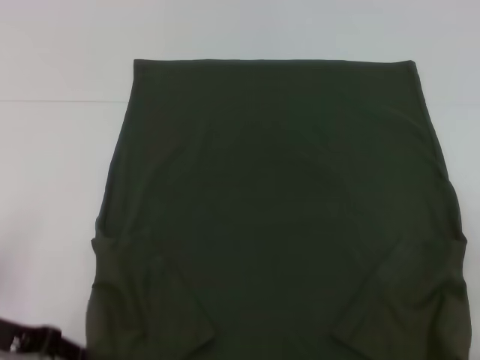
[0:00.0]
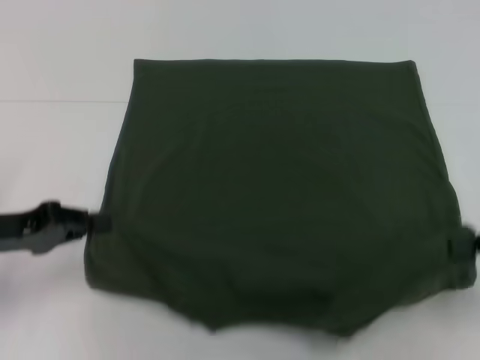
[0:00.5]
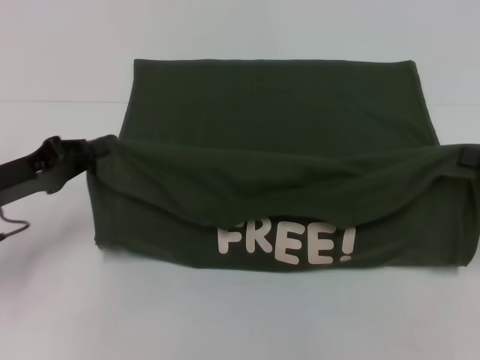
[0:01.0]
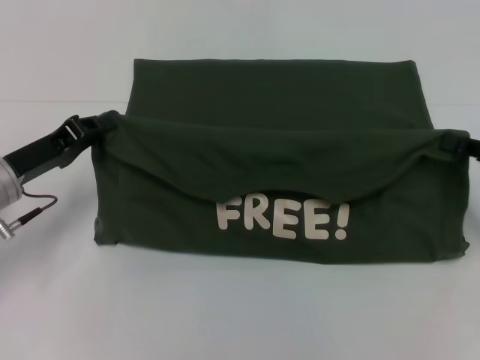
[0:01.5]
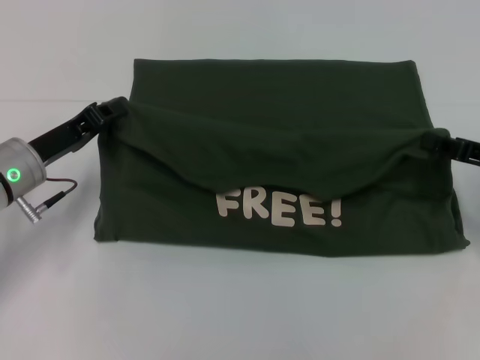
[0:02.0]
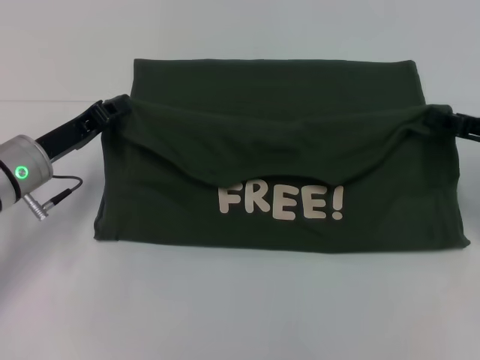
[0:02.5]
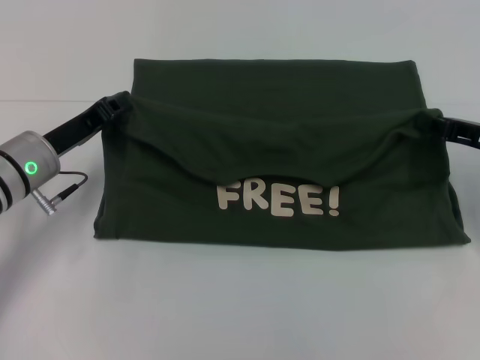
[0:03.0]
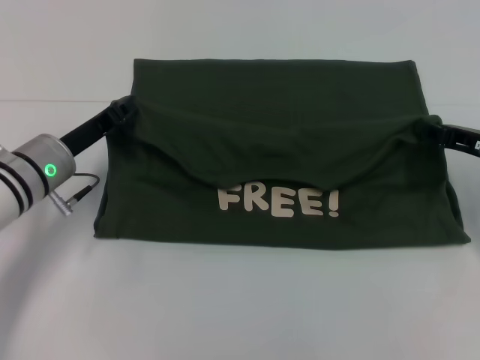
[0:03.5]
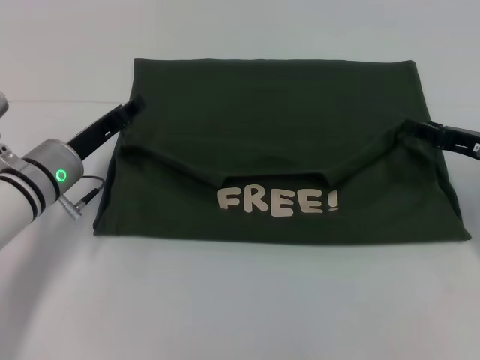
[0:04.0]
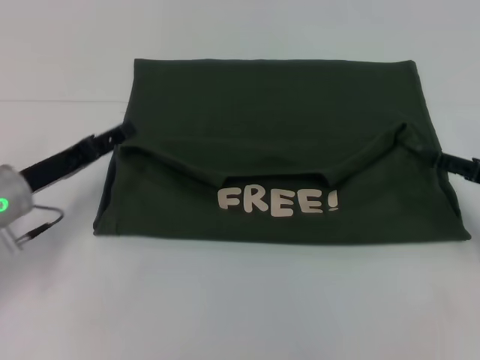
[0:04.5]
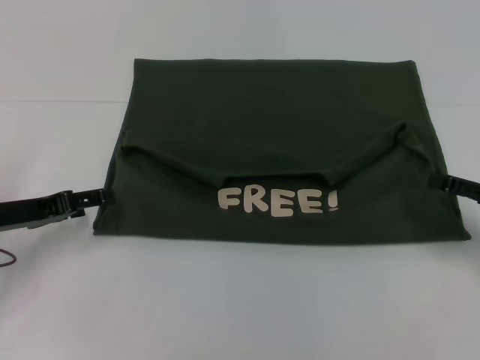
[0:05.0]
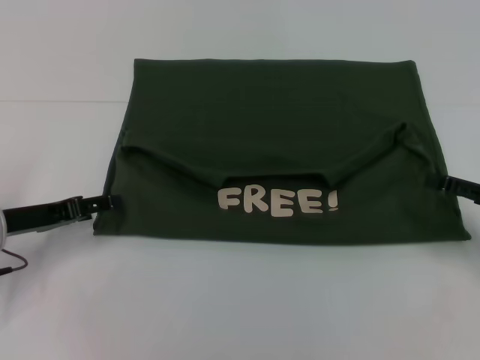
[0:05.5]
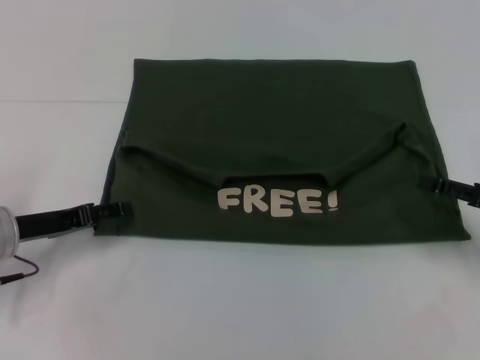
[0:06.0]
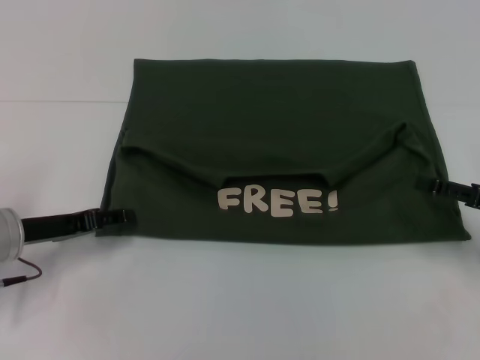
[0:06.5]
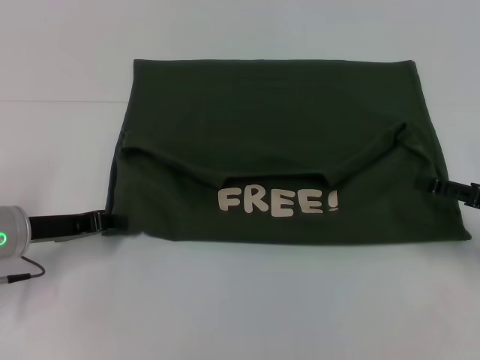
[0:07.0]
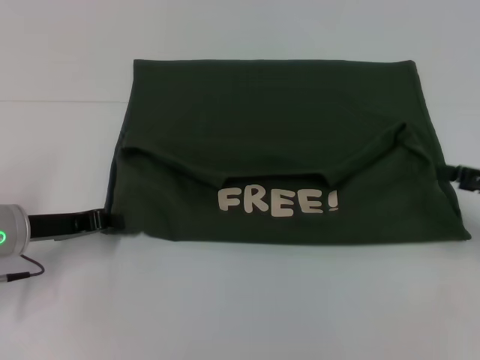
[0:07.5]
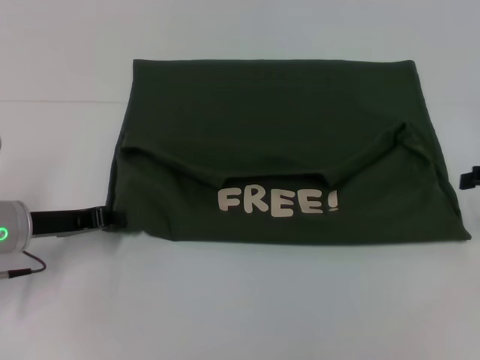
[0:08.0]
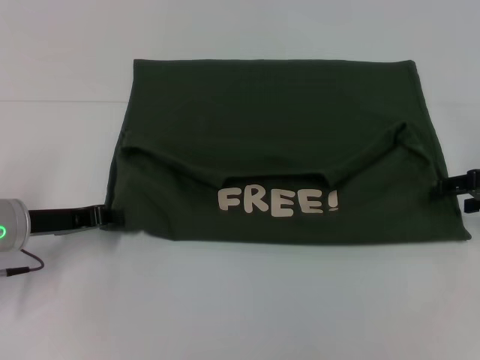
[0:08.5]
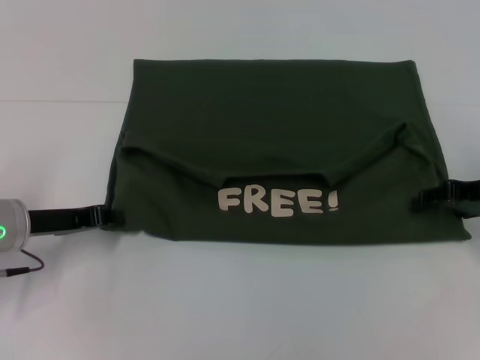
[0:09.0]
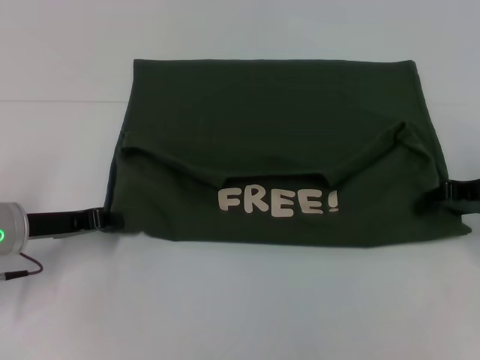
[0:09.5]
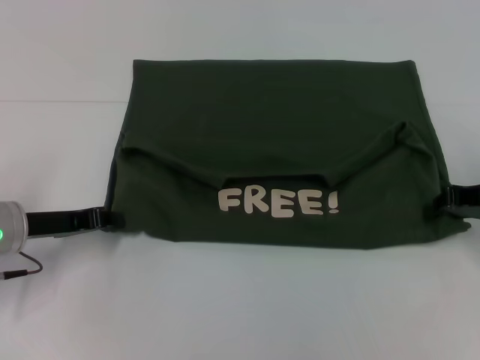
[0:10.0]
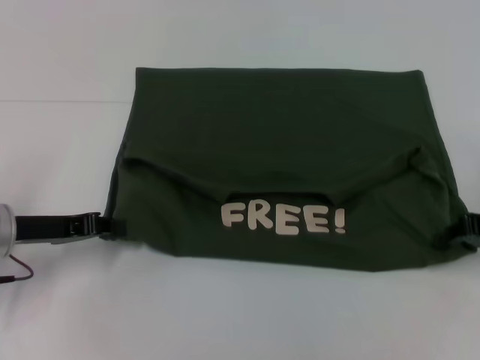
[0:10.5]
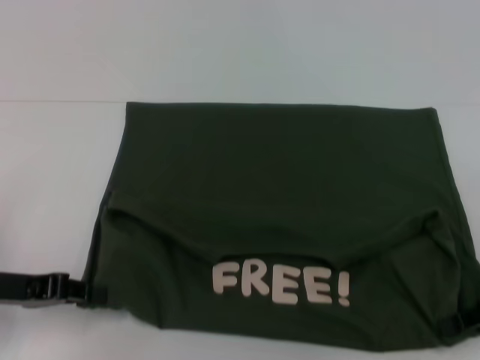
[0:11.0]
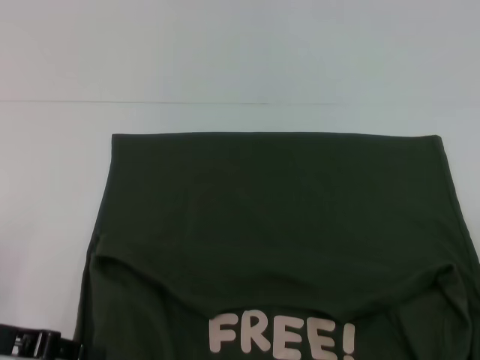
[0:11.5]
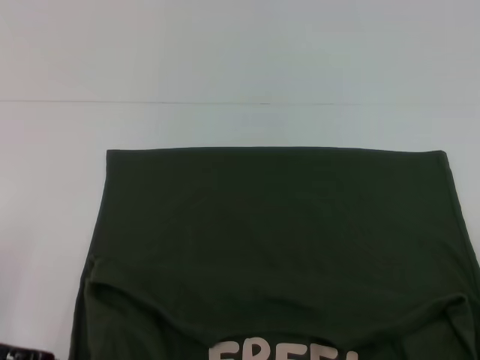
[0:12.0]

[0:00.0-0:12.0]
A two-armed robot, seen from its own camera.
Step, 0:00.0 to 0:03.5: Fold the clothes with your left hand.
Step, 0:00.0 to 0:03.5: Fold the clothes with your right hand.
0:00.0 to 0:02.0: Both grippers move forward, roughly 10 cm.
0:02.0 to 0:04.0: The right gripper opens its fingers.
0:04.0 to 0:06.0: The right gripper moves backward, some 5 cm, and opens its fingers. The left gripper moves to the left and backward, some 10 cm, and opens.
0:06.0 to 0:08.0: The left gripper closes, while the right gripper travels upward and forward by roughly 10 cm.
0:08.0 to 0:10.0: The right gripper is displaced to the left by roughly 5 cm, and closes its fingers.
0:10.0 to 0:12.0: The two grippers go approximately 10 cm backward.

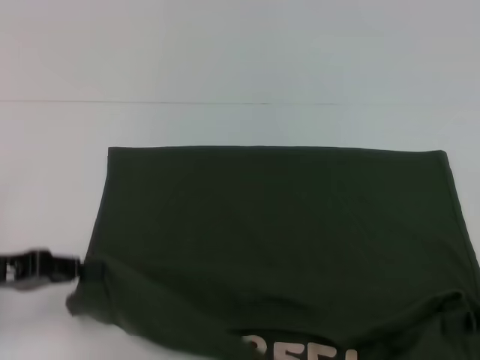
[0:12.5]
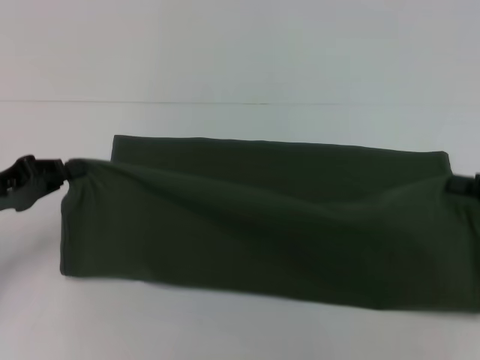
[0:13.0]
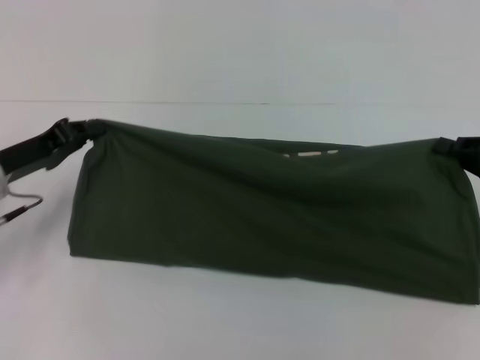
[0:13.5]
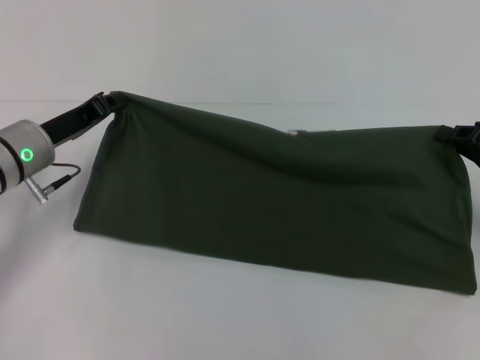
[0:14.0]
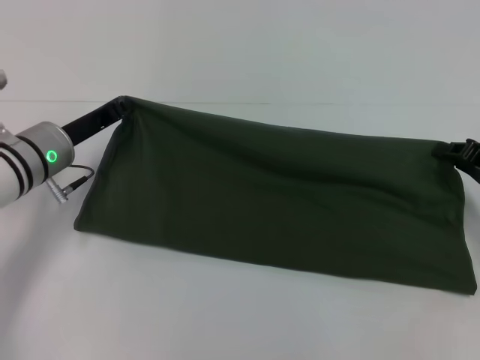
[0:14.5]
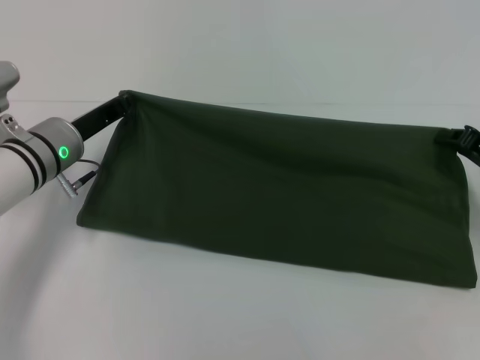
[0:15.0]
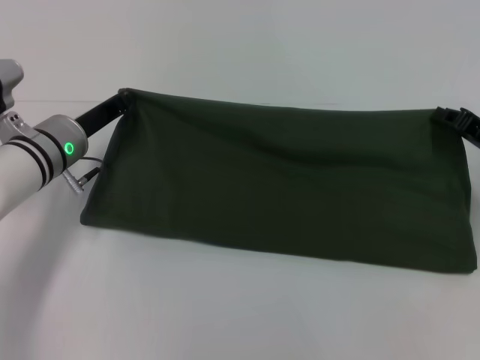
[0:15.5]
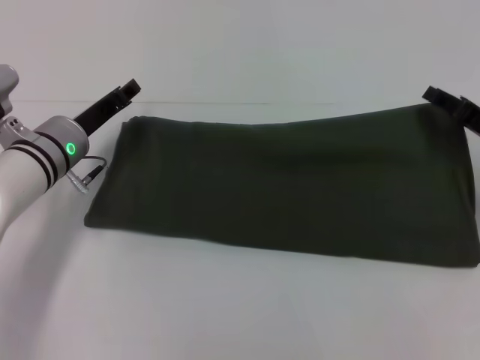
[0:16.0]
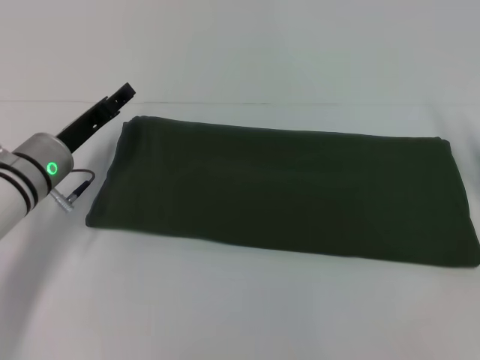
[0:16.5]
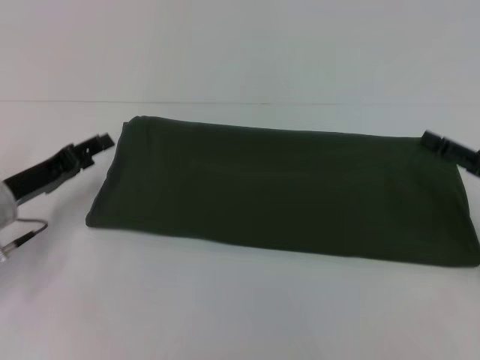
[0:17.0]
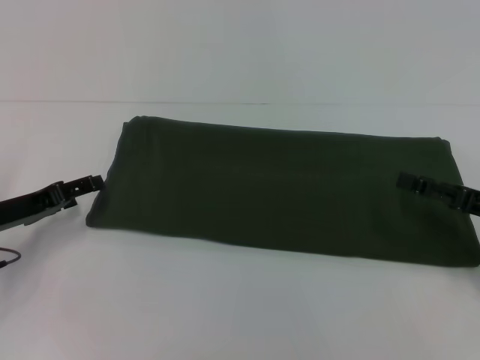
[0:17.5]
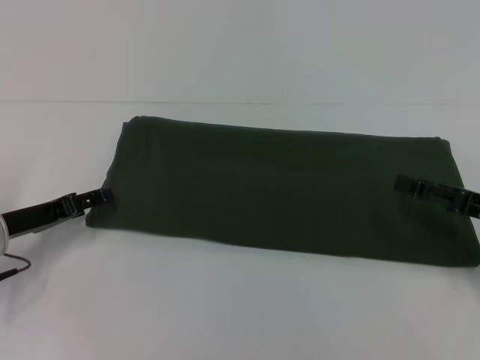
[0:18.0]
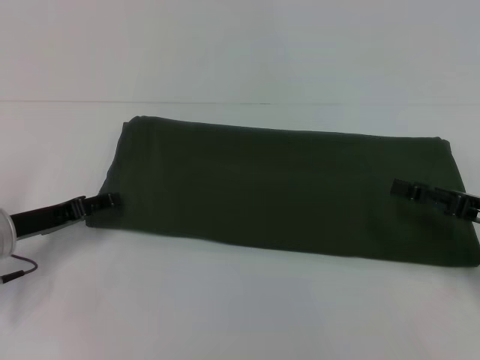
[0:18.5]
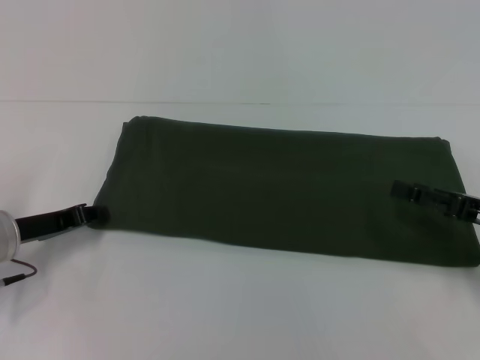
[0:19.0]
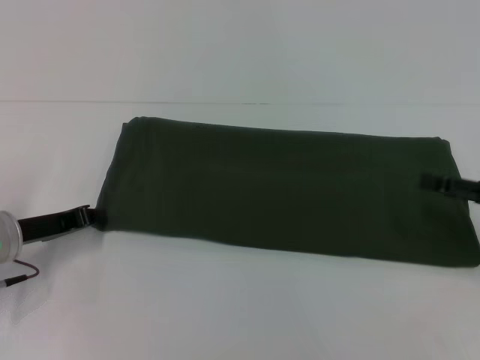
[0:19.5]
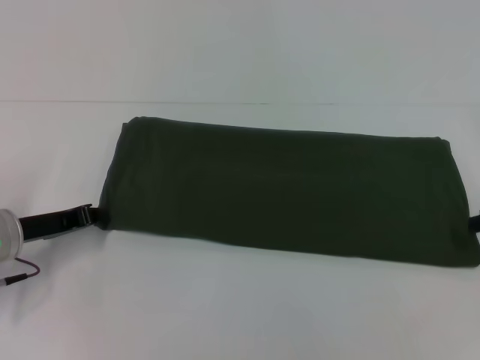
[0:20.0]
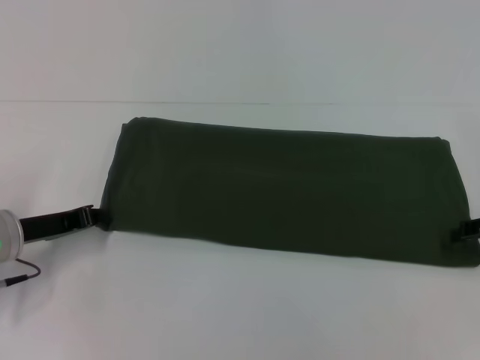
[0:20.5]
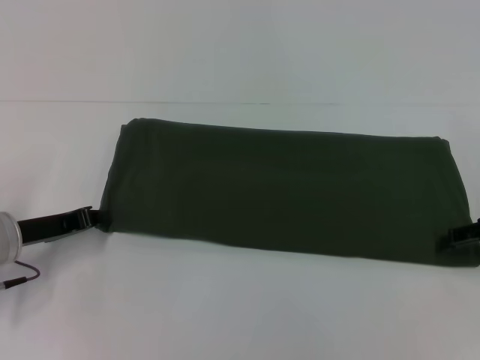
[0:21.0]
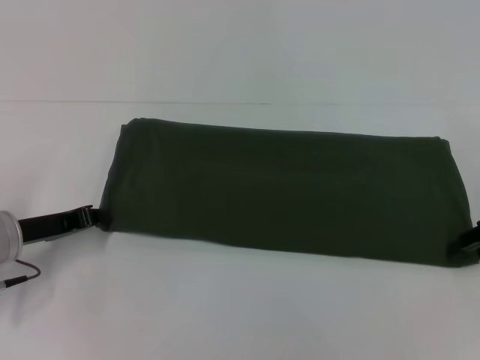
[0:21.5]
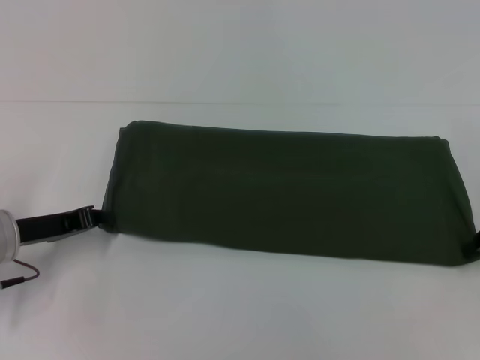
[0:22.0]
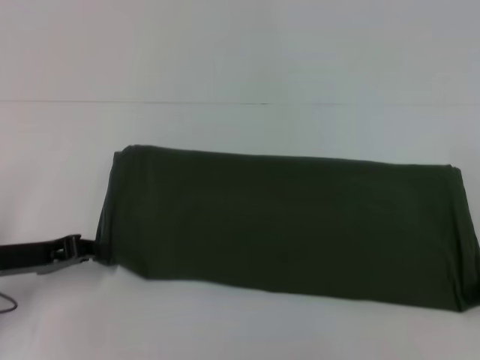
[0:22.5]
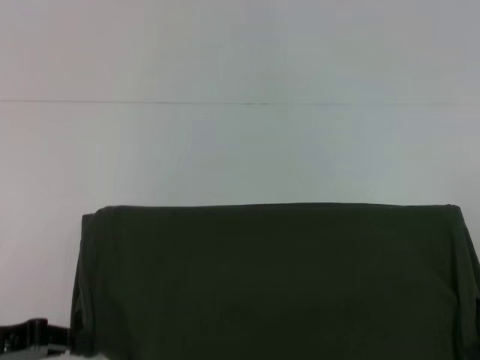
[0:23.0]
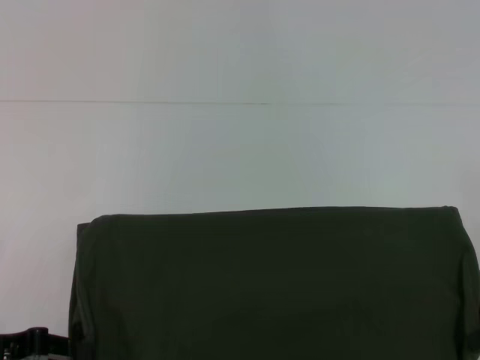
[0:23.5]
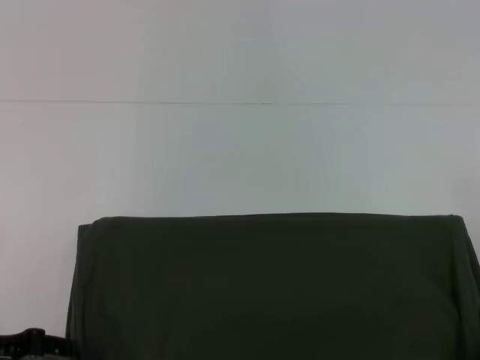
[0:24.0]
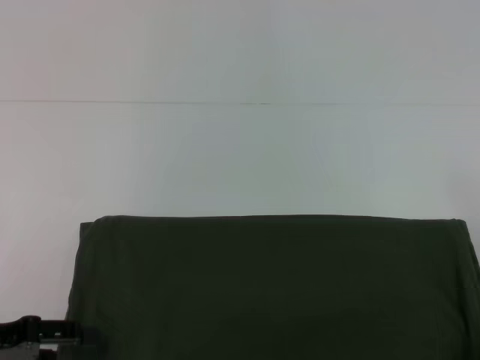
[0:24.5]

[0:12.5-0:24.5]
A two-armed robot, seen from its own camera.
Step, 0:12.5 to 0:16.5: Fold the clothes with your left hand.
Step, 0:12.5 to 0:16.5: Fold the clothes with your right hand.
0:12.5 to 0:14.5: The right gripper shifts approximately 10 cm forward; the left gripper heads forward and to the right, covering roughly 15 cm.
0:14.5 to 0:16.5: The left gripper opens its fingers. The right gripper opens up.
0:16.5 to 0:18.5: The left gripper goes approximately 10 cm backward and to the left. Meanwhile the right gripper changes place by roughly 5 cm.
0:18.5 to 0:20.5: The left gripper closes; the right gripper goes approximately 5 cm upward.
0:20.5 to 0:22.5: The right gripper closes up.
0:22.5 to 0:24.5: The left gripper heads backward, covering roughly 5 cm, and opens its fingers.

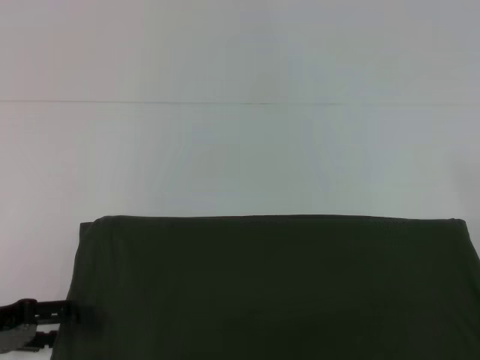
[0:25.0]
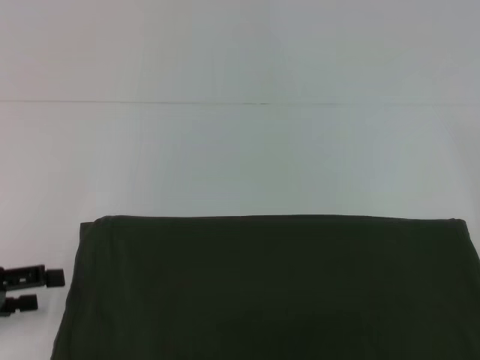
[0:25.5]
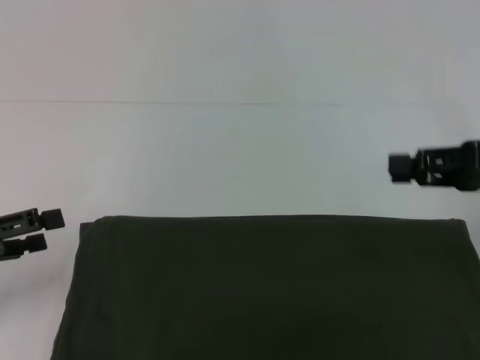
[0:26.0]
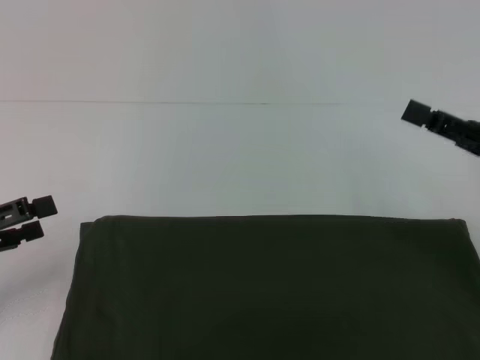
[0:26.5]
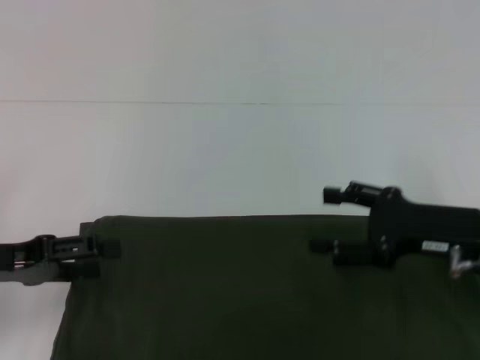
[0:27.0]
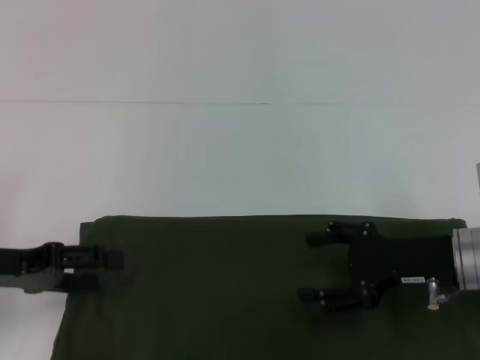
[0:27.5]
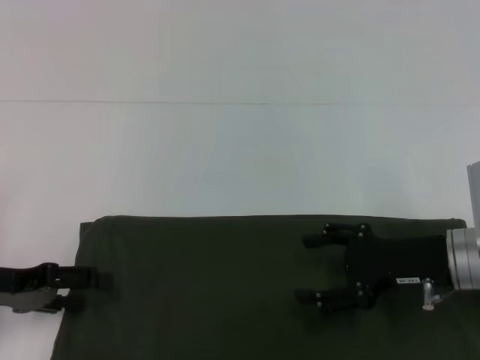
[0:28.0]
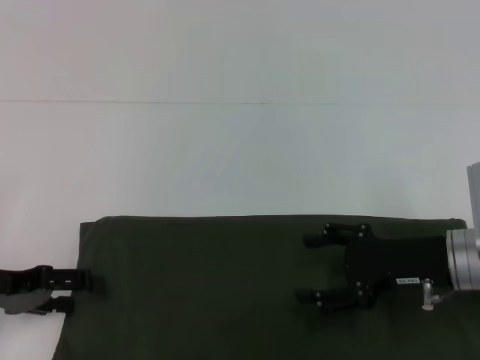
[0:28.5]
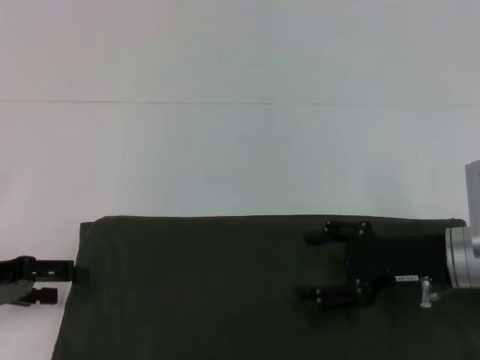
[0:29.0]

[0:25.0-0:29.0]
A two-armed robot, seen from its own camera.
0:25.0 to 0:27.0: The right gripper goes some 10 cm to the left, and opens its fingers.
0:27.0 to 0:29.0: The grippers move only a little.
